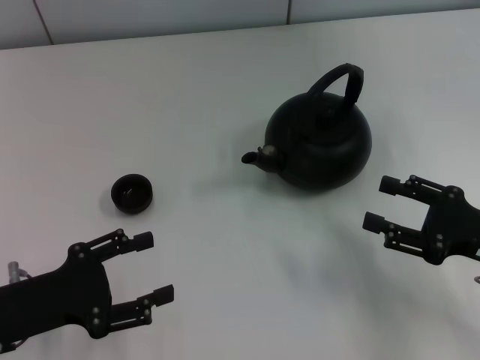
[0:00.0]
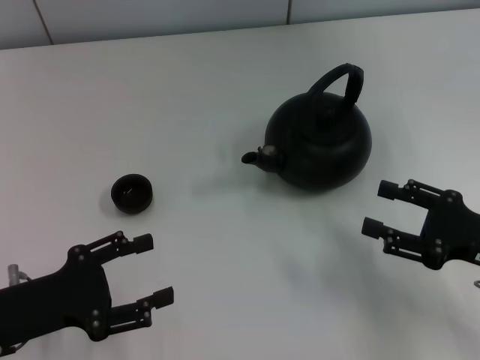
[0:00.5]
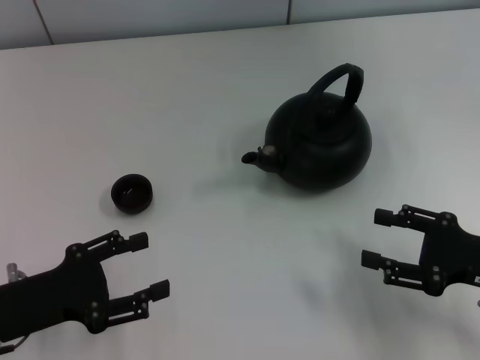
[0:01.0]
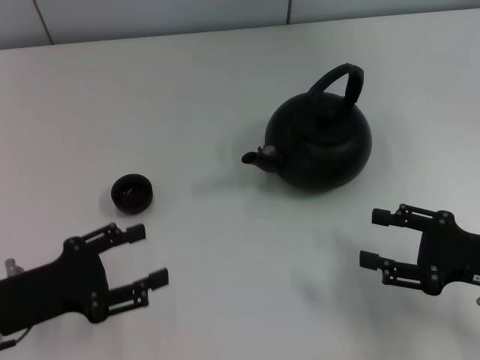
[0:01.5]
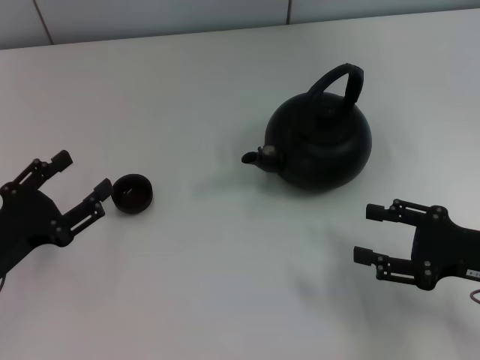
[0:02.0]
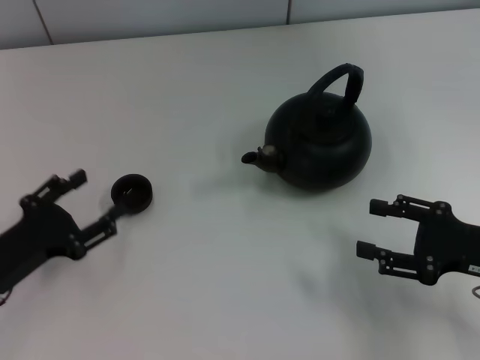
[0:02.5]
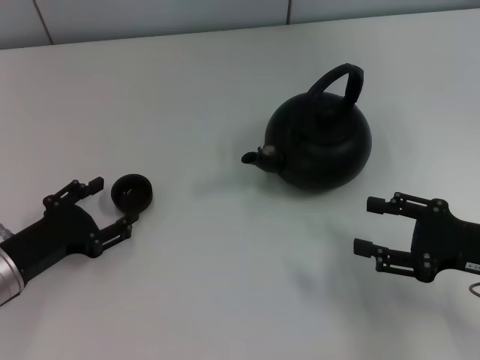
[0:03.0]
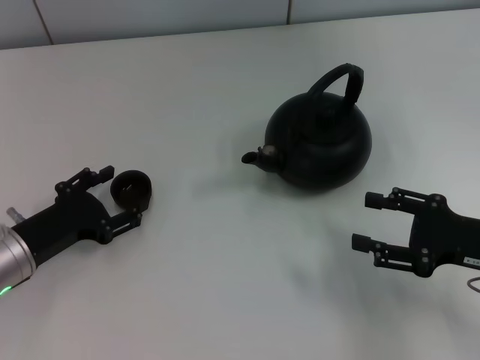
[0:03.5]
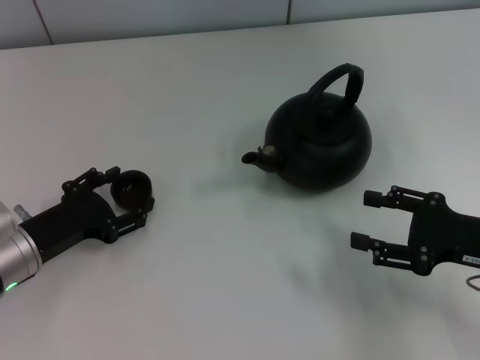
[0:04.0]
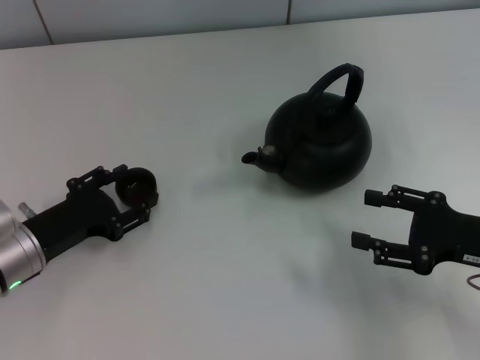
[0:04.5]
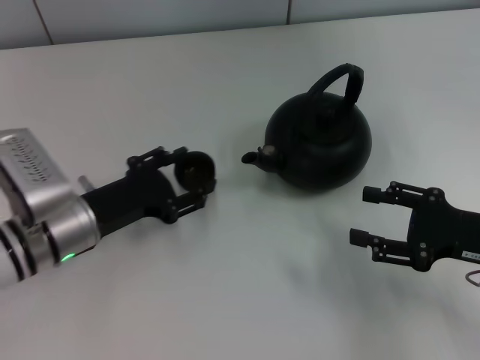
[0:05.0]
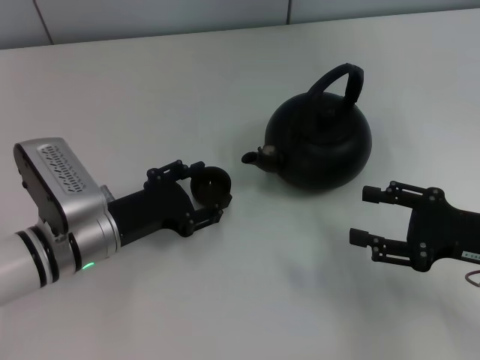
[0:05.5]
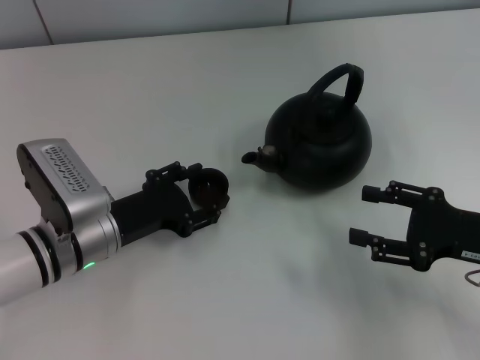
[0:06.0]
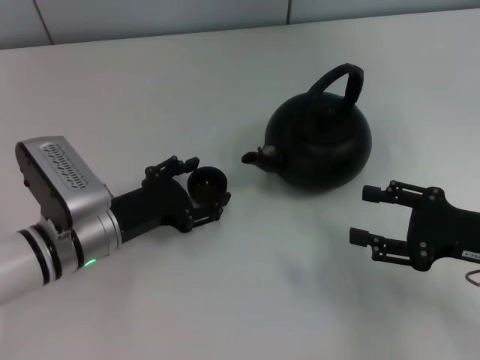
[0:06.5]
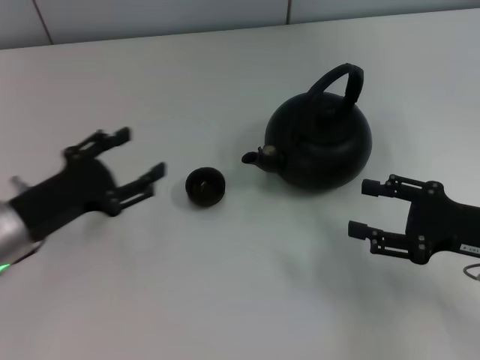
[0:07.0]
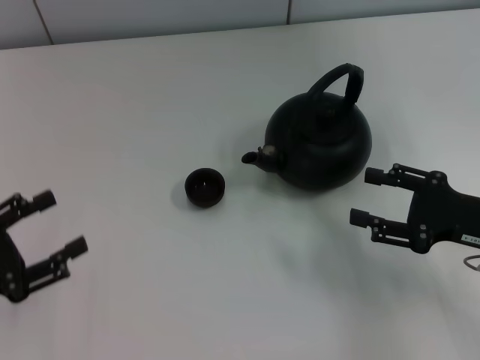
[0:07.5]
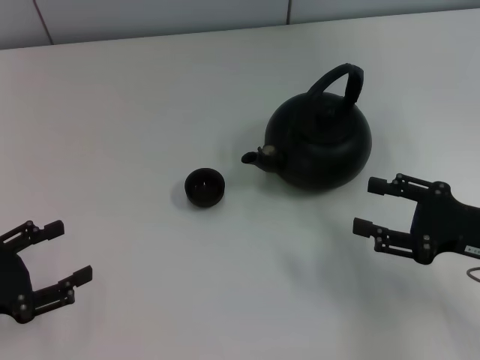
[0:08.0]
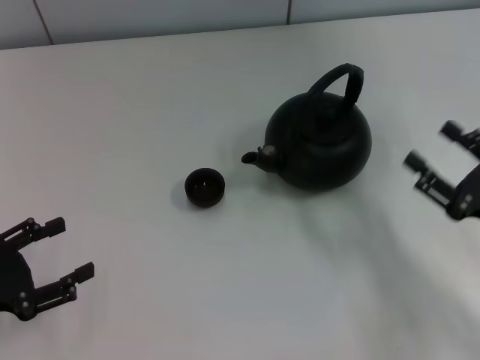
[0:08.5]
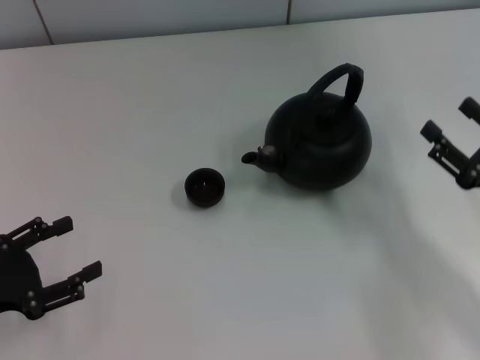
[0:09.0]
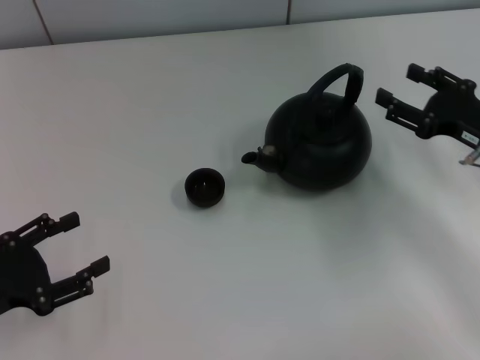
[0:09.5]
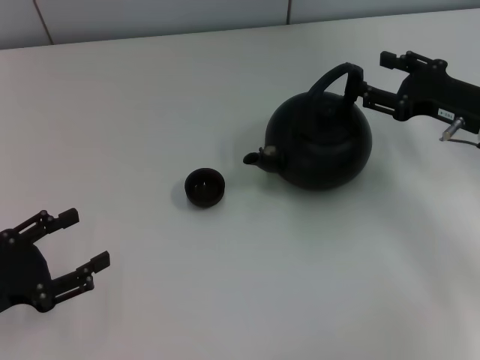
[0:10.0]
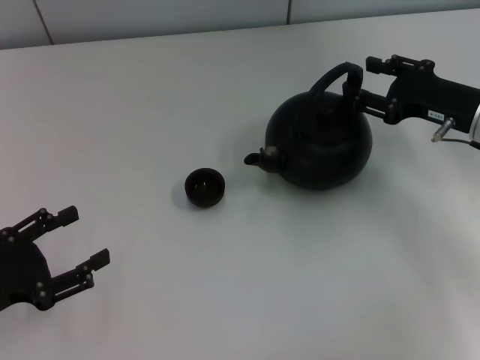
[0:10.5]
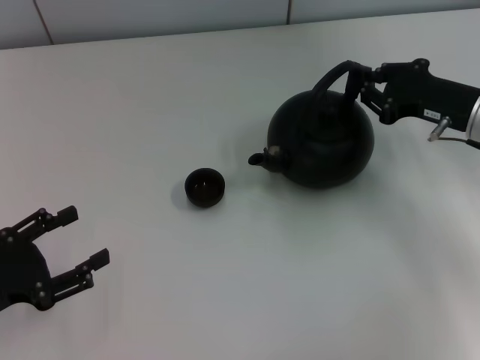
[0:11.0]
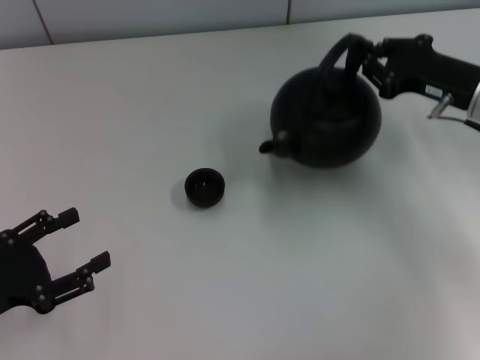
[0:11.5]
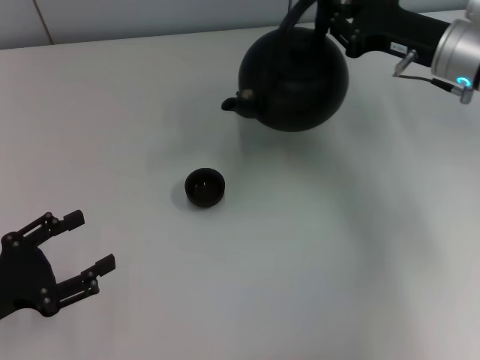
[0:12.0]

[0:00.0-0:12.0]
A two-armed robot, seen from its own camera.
Task of the whole recording: Grasp the handle of the teapot with one hand and pour tea into the teacup.
Step, 0:00.0 to 0:04.5: Pick up the teacup with the left gripper.
Step, 0:05.0 to 0:06.5: Place the teacup in the center of view with the left gripper.
Step, 0:07.0 to 0:11.5: Pick up the teapot with the right gripper.
0:02.0 to 0:04.0: The left gripper shifts by approximately 5 cm.
0:04.0 to 0:06.0: The left gripper moves to the right, roughly 10 cm.
0:06.0 to 0:08.0: The left gripper heads to the left and backward, covering roughly 20 cm.
0:08.0 to 0:10.0: The right gripper travels forward by approximately 10 cm.
0:10.0 to 0:12.0: The right gripper moves forward, about 5 cm, and closes up.

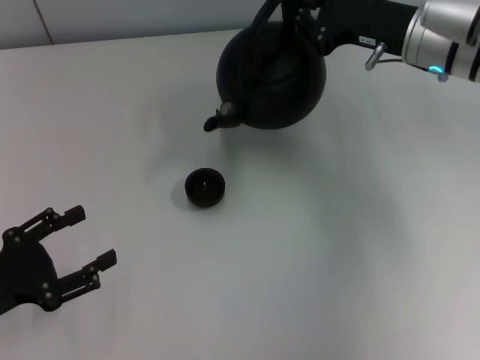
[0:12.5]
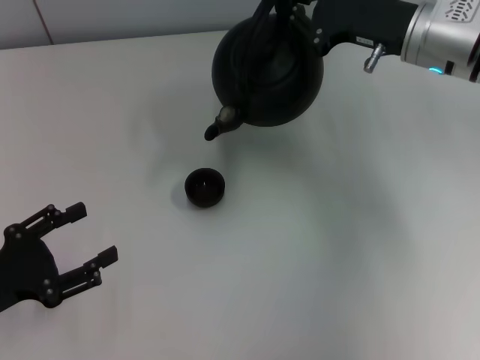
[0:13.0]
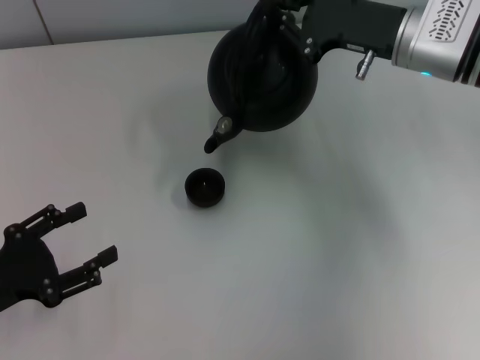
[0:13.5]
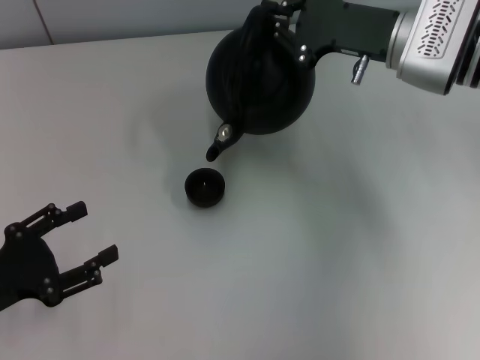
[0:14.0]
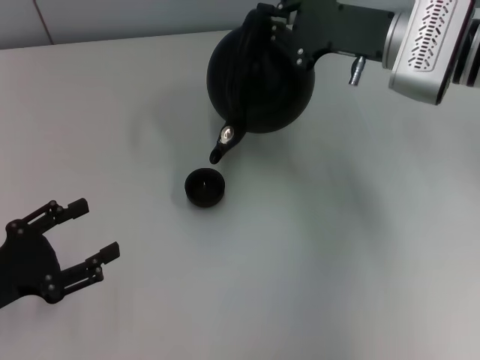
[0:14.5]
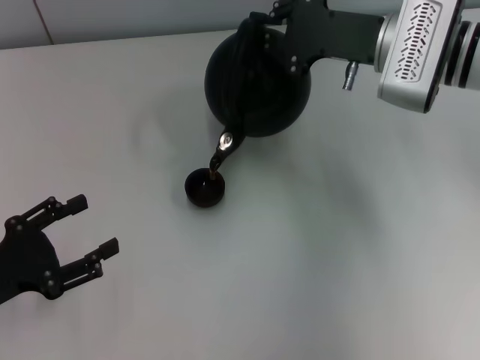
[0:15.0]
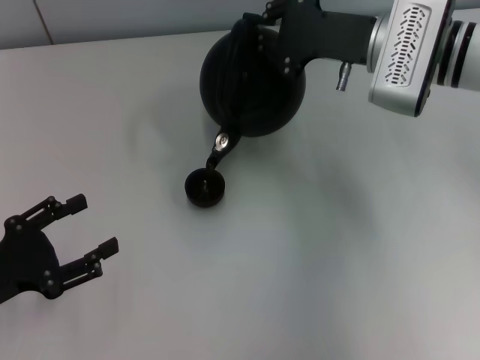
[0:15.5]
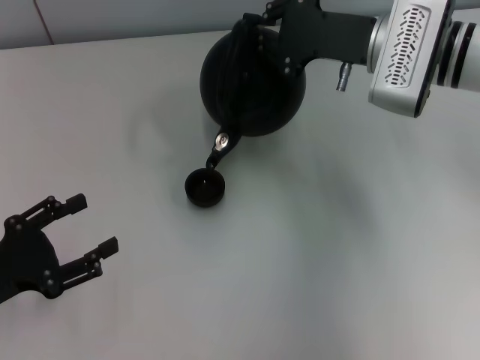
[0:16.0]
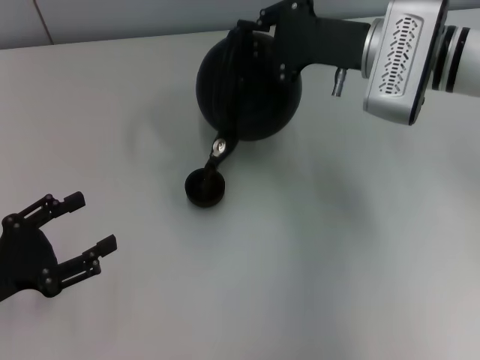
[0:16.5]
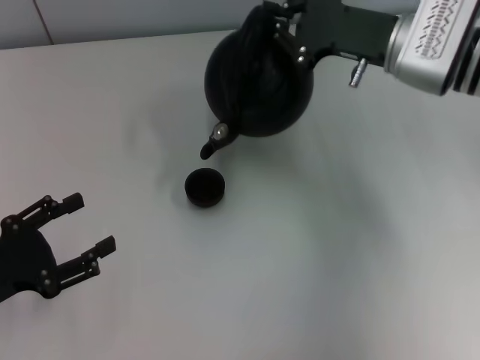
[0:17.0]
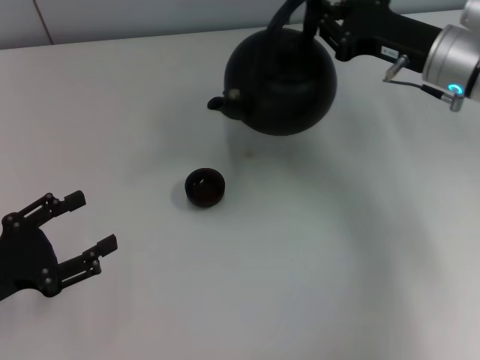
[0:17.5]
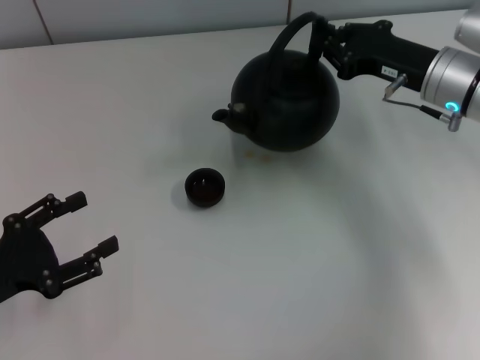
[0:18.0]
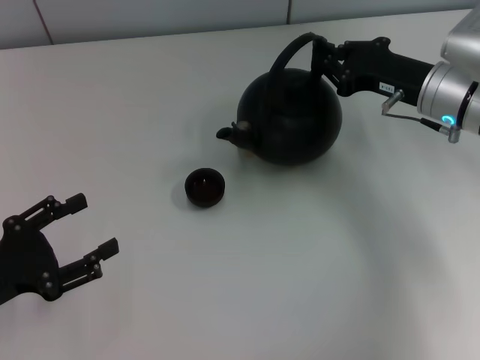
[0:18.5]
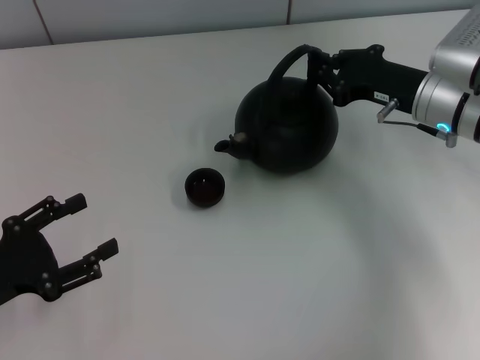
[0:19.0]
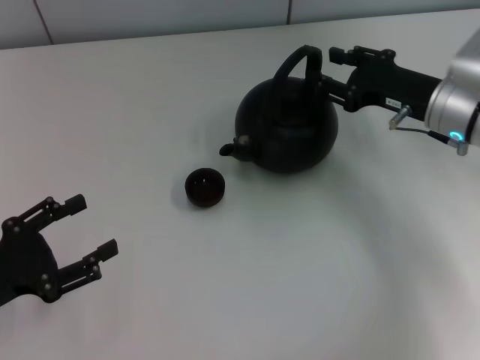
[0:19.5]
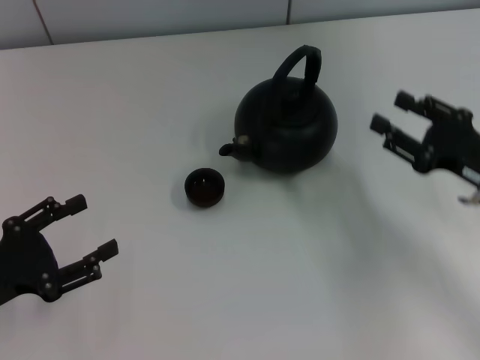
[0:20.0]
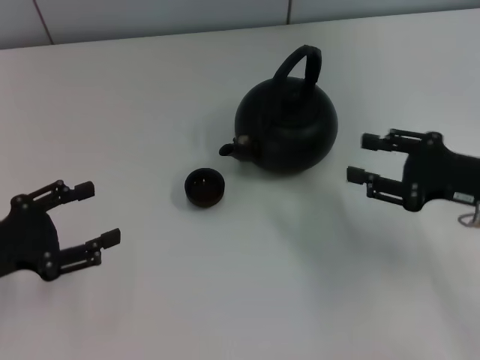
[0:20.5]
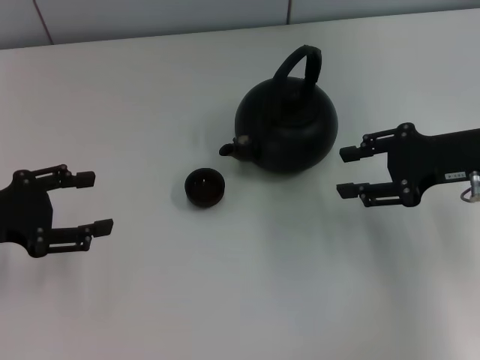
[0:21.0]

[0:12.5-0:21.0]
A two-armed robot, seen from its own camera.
Task of the whole recording: Grasp the handle of the teapot with one hand and pour tea into the teacup.
Step, 0:17.5 to 0:19.5: Put down the teapot with the right gripper.
0:14.5 to 0:16.5: The grippers stay close to where they were, moving slightly.
0:16.5 to 0:19.0: The right gripper heads to the right and downward, covering some 10 cm.
0:19.0 to 0:21.0: The right gripper is displaced backward by some 5 cm, and opens up, while the left gripper heads forward, covering some 10 cm.

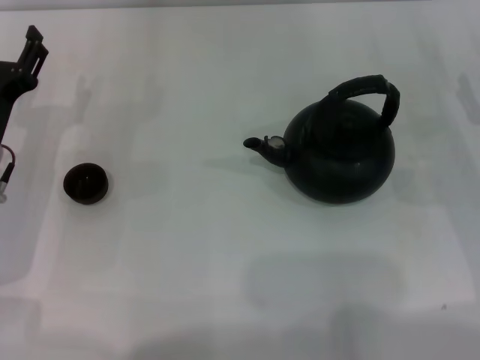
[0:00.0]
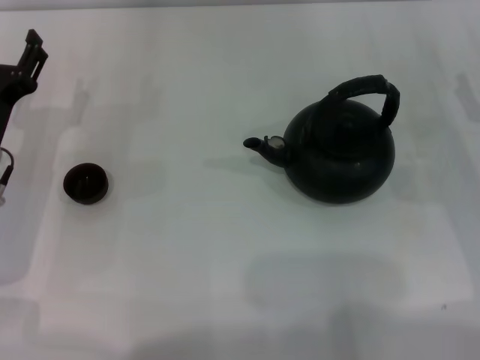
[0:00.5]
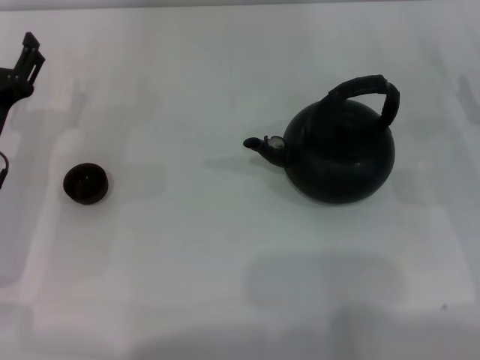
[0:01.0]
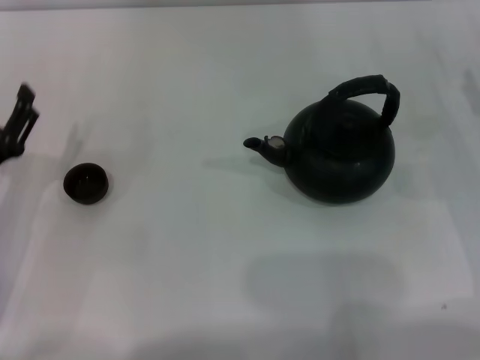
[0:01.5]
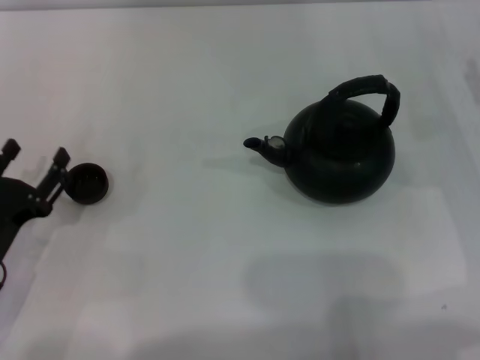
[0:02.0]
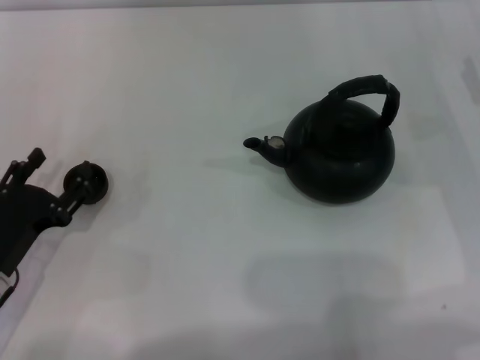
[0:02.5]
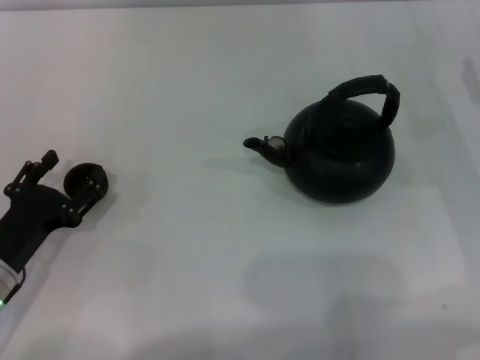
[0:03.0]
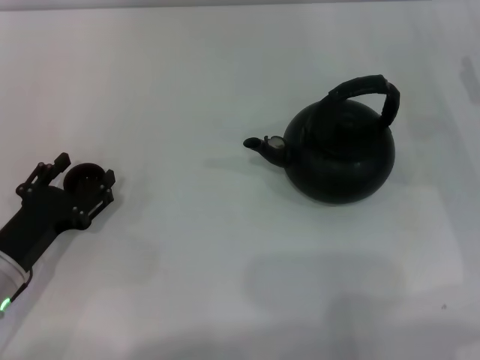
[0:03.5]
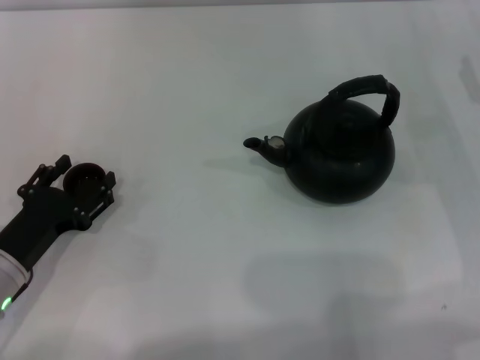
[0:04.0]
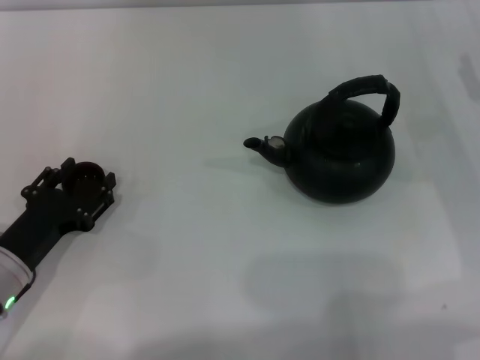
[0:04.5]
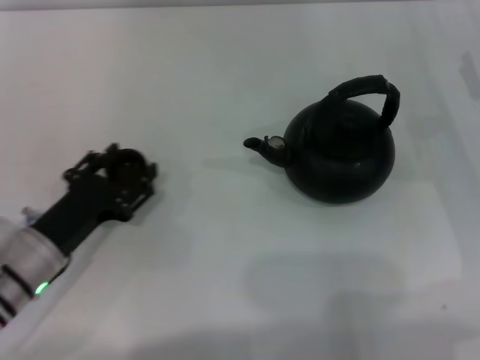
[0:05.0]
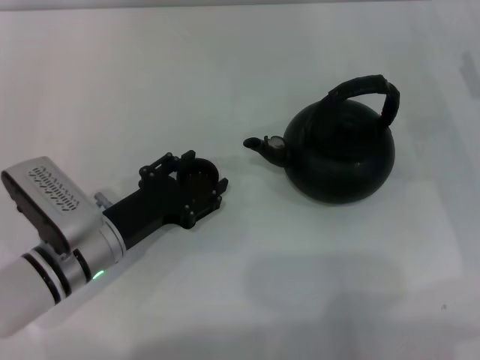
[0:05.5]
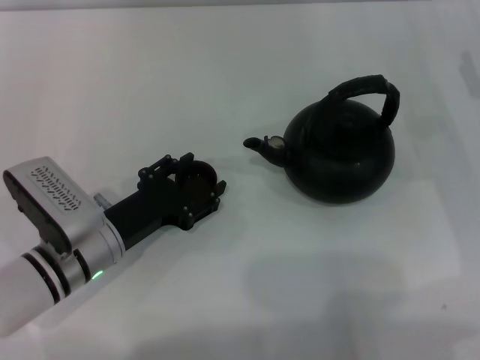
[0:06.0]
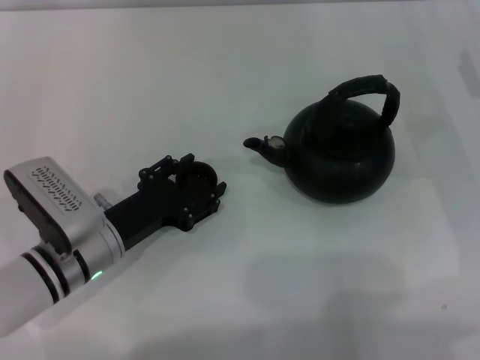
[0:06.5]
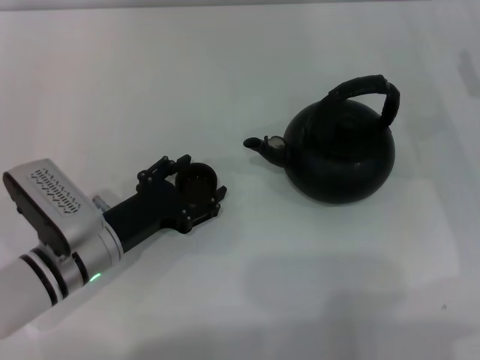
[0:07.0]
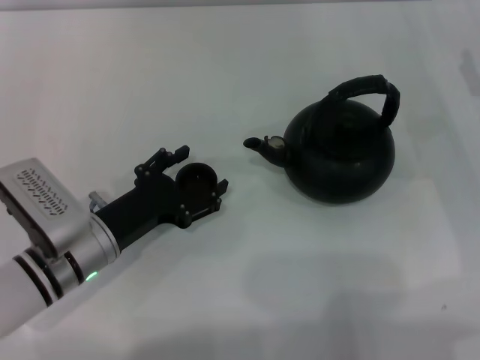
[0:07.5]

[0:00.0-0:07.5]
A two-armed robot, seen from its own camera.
Task of the whole recording: Grasp the handle of the teapot with one hand and pour tea into the teacup.
Step, 0:00.0 to 0:04.5: Pick up the teacup with the left gripper.
0:00.0 to 0:02.0: The left gripper goes about 10 cm backward.
0:02.0 to 0:04.0: The grippers make only small movements.
0:04.0 to 0:05.5: The left gripper travels to the right by about 10 cm, and closes its fingers.
0:05.5 to 0:07.5: The left gripper opens its fingers.
